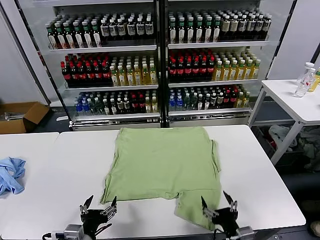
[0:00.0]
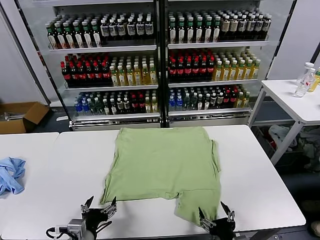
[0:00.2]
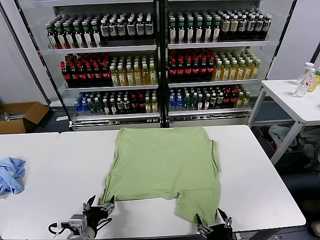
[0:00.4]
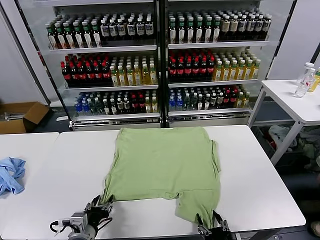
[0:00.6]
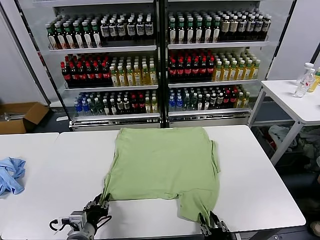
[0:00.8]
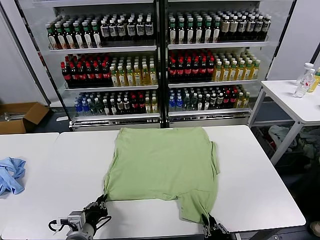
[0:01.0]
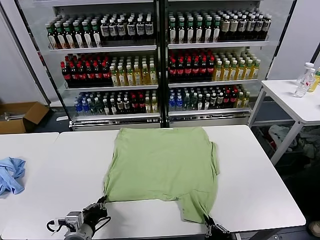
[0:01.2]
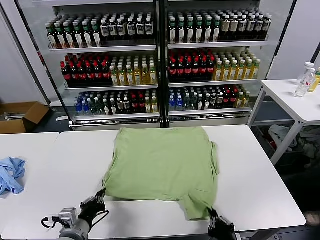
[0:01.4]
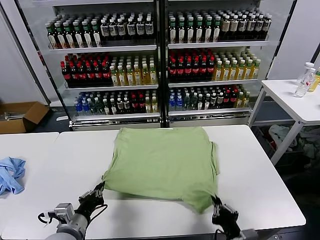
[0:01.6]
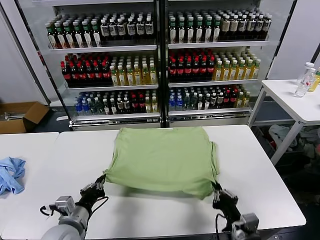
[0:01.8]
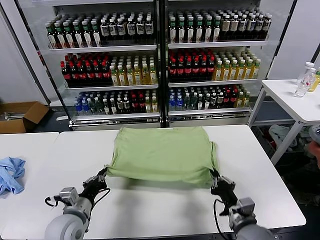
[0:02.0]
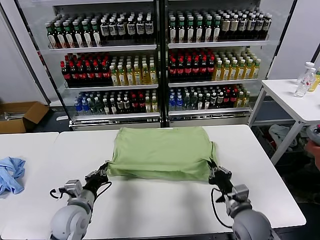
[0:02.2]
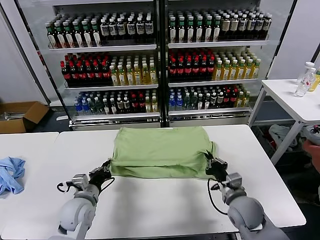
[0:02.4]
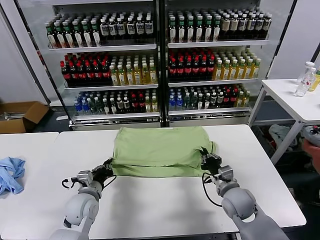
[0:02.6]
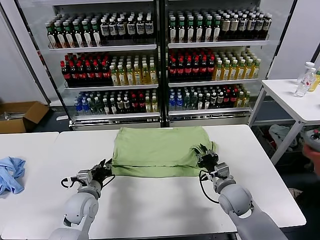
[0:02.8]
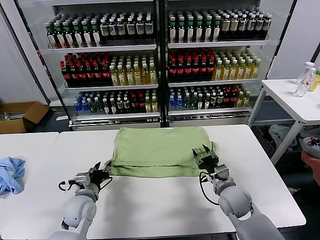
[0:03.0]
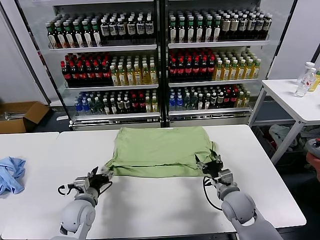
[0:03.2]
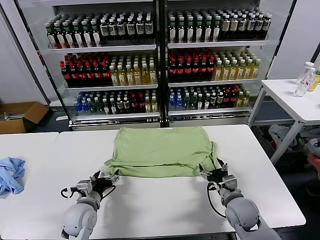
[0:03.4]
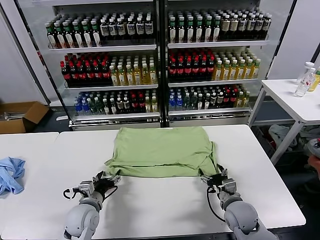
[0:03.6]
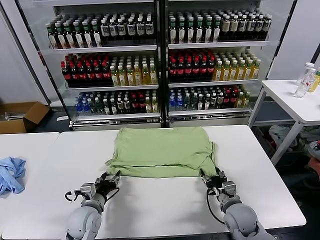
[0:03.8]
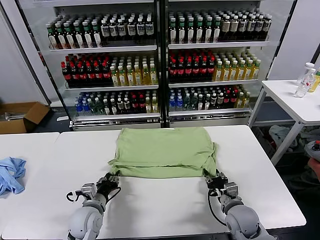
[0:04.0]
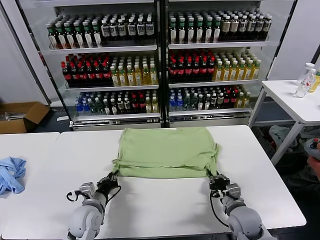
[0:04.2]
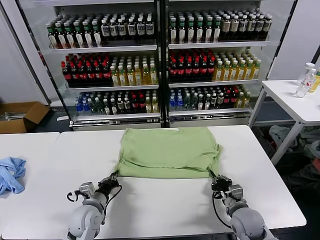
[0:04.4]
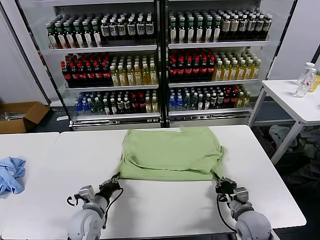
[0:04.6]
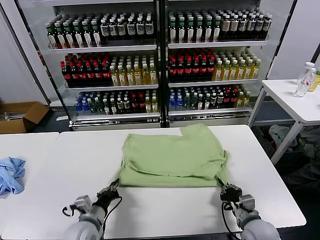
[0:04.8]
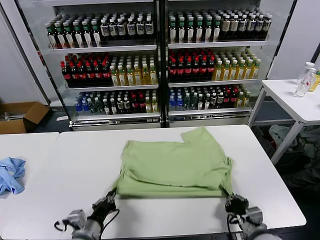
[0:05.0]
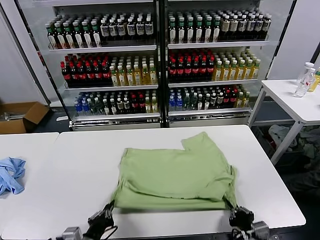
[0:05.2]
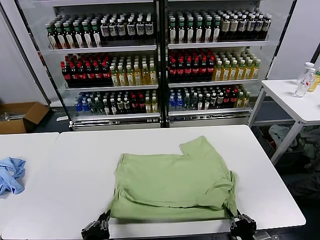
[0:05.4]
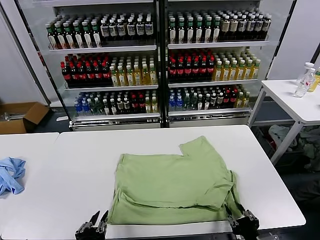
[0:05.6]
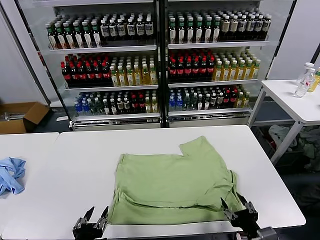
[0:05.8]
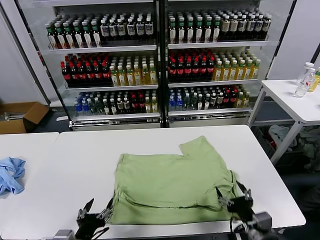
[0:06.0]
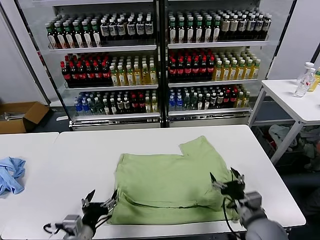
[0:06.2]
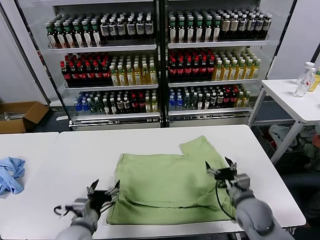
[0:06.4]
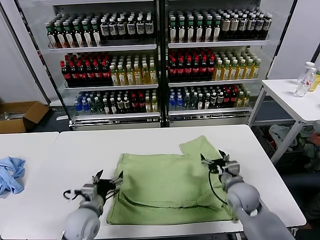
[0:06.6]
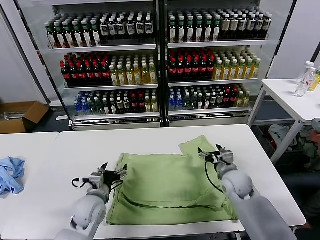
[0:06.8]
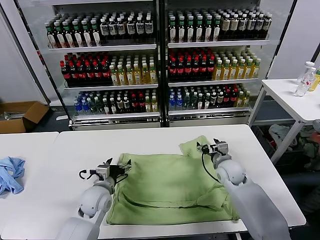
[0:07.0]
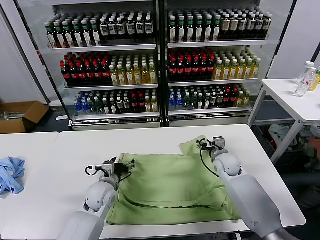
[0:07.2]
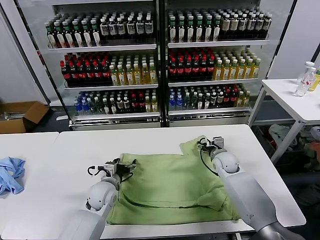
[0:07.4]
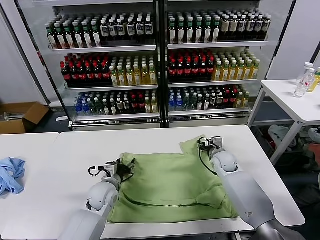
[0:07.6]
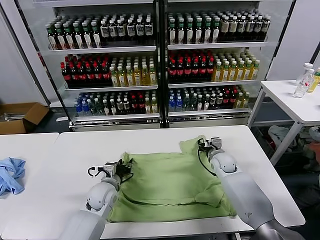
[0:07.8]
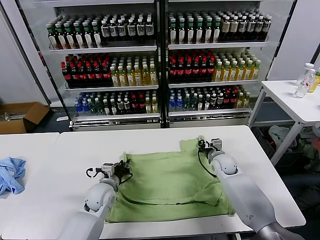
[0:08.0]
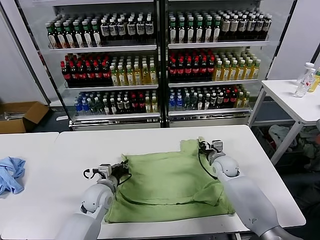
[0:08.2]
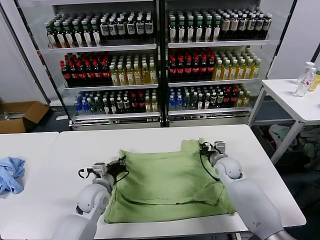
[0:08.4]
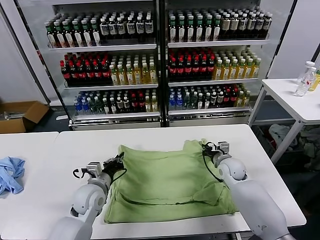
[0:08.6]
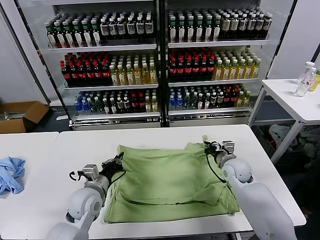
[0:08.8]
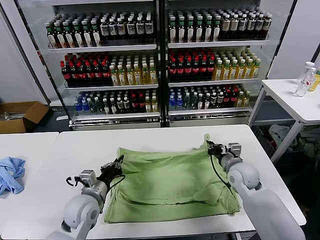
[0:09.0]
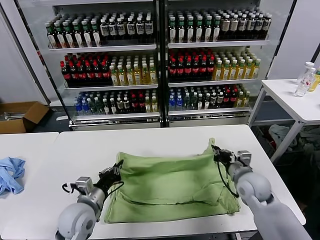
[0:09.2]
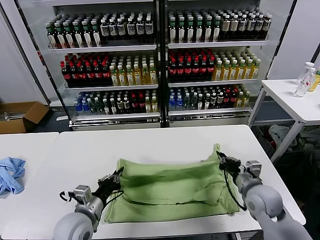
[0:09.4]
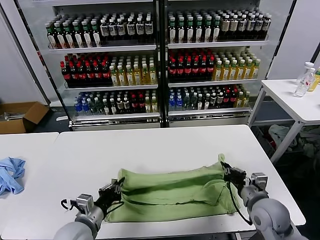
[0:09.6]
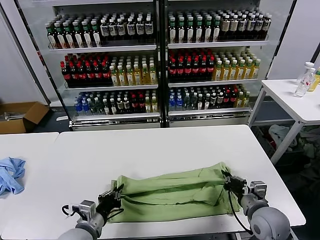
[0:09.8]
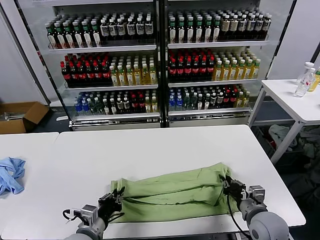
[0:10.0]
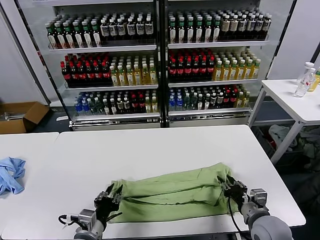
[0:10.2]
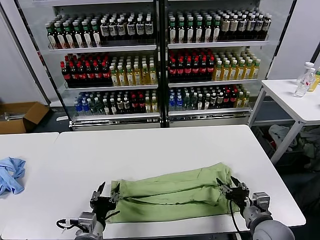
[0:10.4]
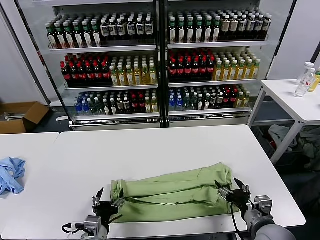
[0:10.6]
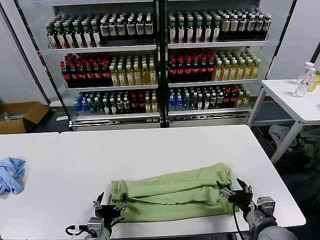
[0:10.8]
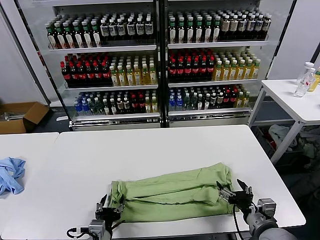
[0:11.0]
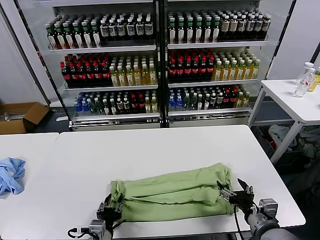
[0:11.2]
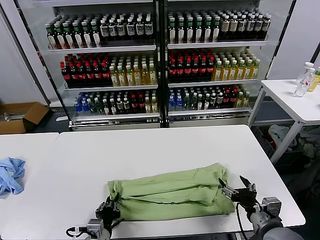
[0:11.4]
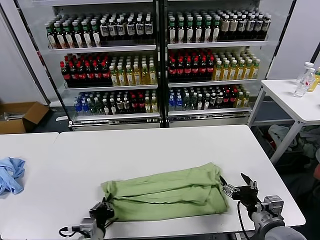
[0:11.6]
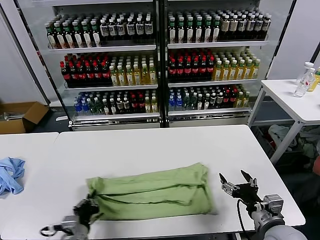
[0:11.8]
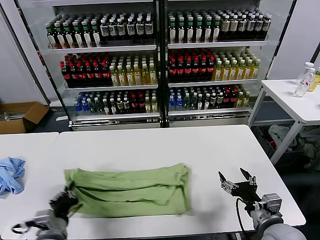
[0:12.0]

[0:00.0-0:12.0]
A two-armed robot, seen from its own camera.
Task of the whole recording: fold and organize the clothes.
Step, 0:00.0 to 0:01.2: use both grippers simultaneously to clamp the lower edge of the clothing fabric.
Step, 0:01.4 to 0:03.0: use both grippers to drag the lower edge of the fabric forward and fold it over the upper edge.
Step, 0:03.2 to 0:05.4: Drag the clothes downward with both gripper.
Step, 0:05.8 to 0:08.0: use both grippers simultaneously to clamp the upper edge of the clothing fabric.
Step, 0:08.4 to 0:10.2: use both grippers to drag the upper edge of the fabric backward and fold it over the lower edge.
Step, 0:10.4 to 0:11.2: use the left gripper to clamp the left edge of the fabric.
0:01.6 to 0:03.0: The right gripper shifts some 15 cm forward, and opens up, while the left gripper goes some 10 cm forward, and opens.
0:03.0 to 0:04.4: The right gripper travels backward by about 5 cm, and closes up; the left gripper closes up.
0:04.4 to 0:06.0: The right gripper shifts some 10 cm upward and backward, and opens its fingers, while the left gripper goes roughly 15 cm backward and upward, and opens up.
0:06.0 to 0:07.6: Both grippers travel together forward, some 25 cm. The right gripper closes its fingers.
0:07.6 to 0:09.0: Both grippers travel together backward and upward, approximately 10 cm. The right gripper closes up; the left gripper closes up.
0:09.0 to 0:10.4: The right gripper heads backward, covering some 15 cm, and opens up, while the left gripper travels backward by roughly 10 cm, and opens its fingers.
0:10.4 to 0:12.0: The left gripper travels to the left by some 10 cm, and closes its fingers.

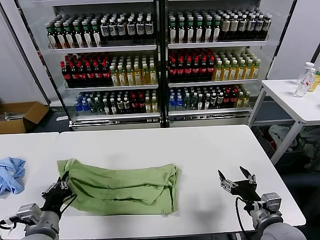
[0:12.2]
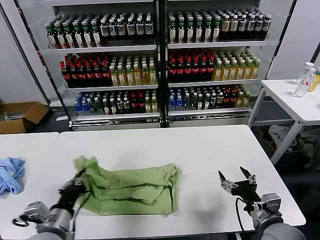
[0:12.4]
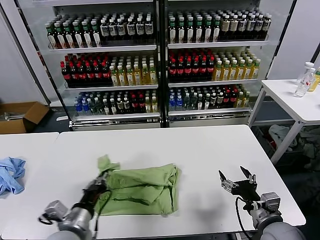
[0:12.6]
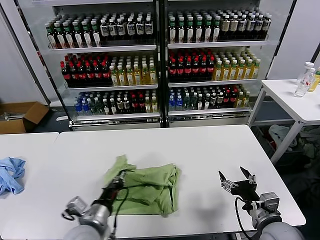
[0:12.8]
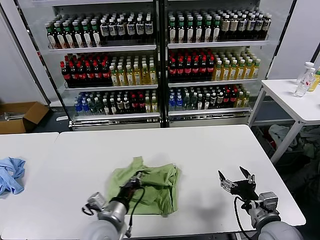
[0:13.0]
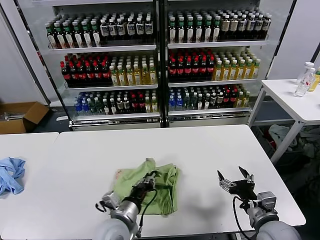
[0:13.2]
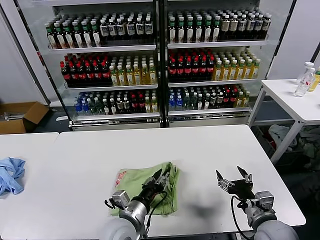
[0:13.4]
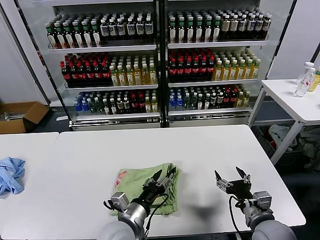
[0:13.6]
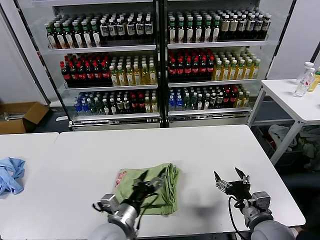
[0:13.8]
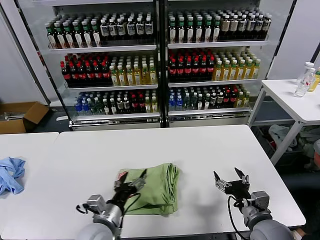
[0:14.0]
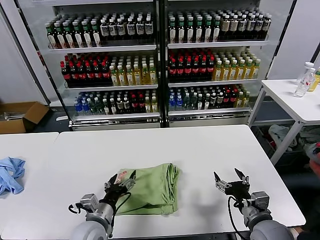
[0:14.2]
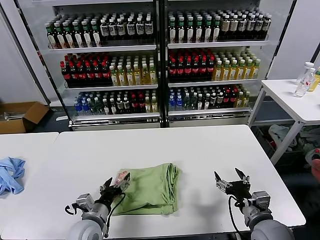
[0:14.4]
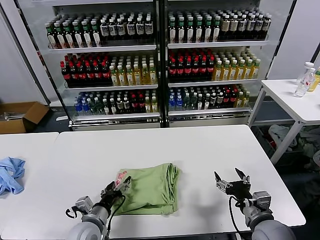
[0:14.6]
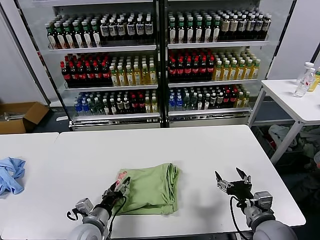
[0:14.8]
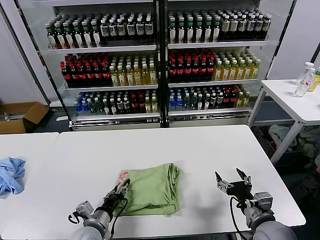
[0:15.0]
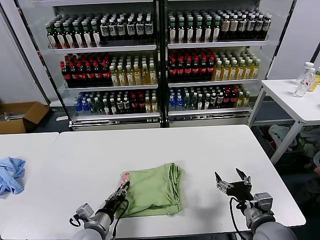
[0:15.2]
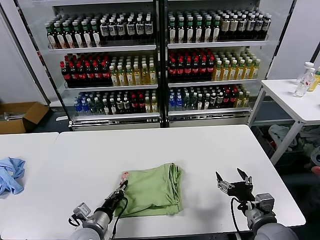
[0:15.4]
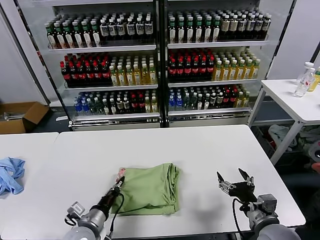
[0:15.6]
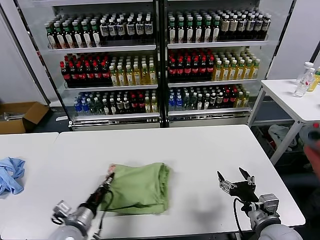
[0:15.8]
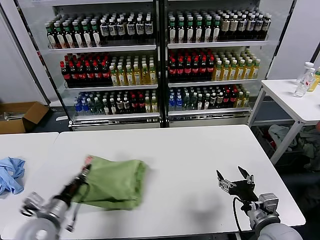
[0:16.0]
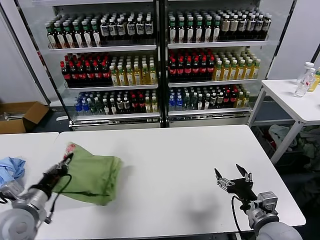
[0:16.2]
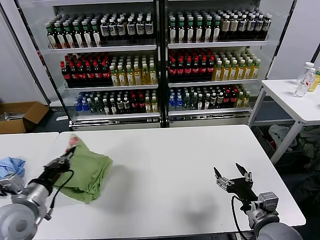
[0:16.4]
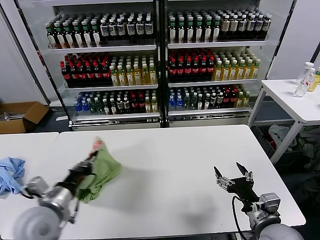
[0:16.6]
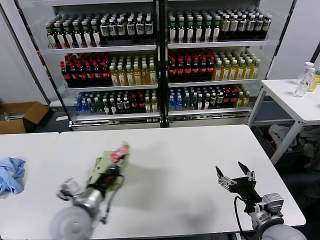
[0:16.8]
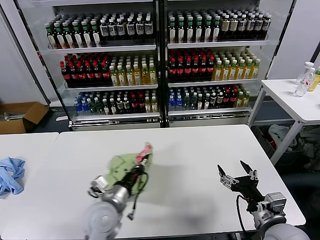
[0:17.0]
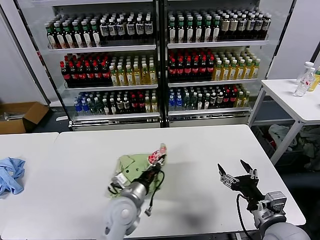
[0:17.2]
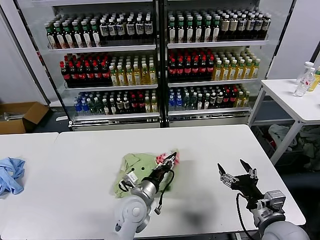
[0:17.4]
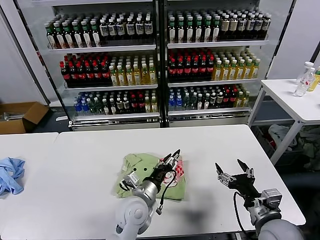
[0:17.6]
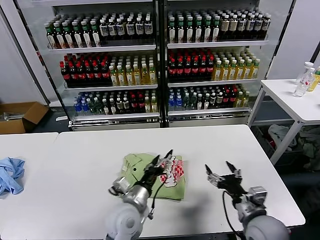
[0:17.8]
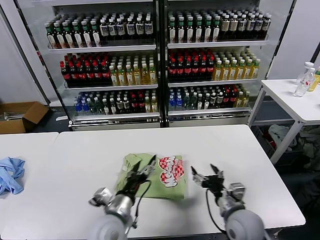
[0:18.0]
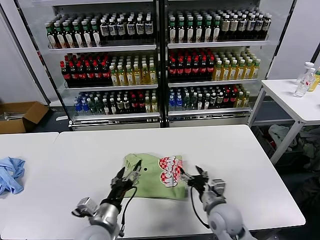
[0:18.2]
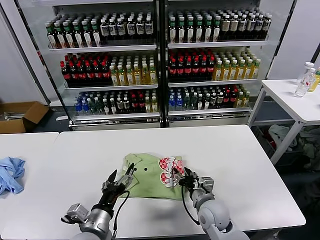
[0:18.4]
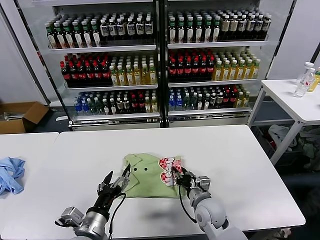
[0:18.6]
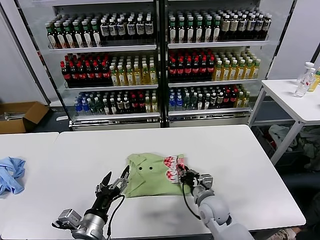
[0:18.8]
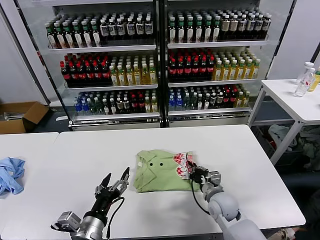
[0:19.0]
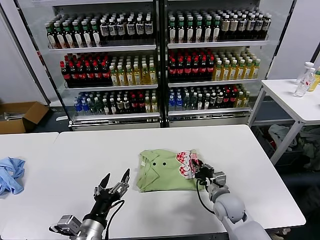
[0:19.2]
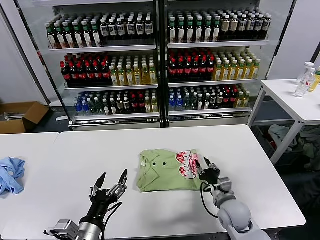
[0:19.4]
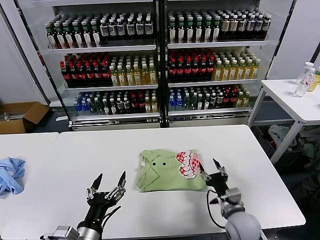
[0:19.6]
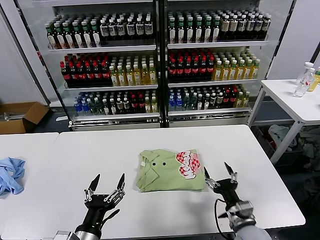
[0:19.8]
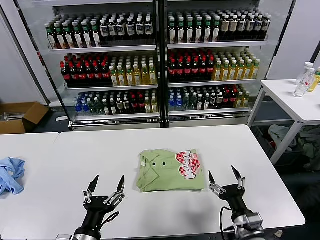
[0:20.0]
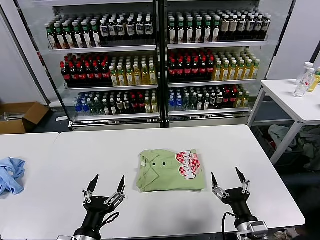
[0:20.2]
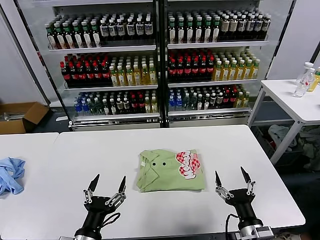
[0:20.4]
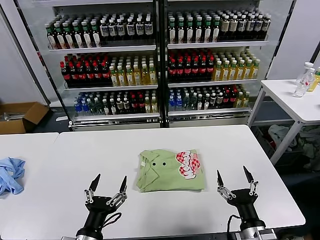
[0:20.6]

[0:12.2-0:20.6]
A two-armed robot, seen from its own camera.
Task of the whole recording: fold and organize the clothes.
Step, 0:12.2 to 0:13.4: use the left gripper to drag the left edge of the fabric to the left and folds it over the right edge.
Step, 0:13.8 to 0:17.4: Flip the folded clothes over with left gripper.
Step, 0:17.6 to 0:19.4: Drag the clothes to the center of the table.
0:12.2 to 0:13.6: The left gripper is displaced to the right by some 20 cm, and opens its fingers.
0:13.6 to 0:15.0: The left gripper is displaced to the left and downward by roughly 15 cm.
0:15.0 to 0:16.4: The left gripper moves upward and to the left, roughly 20 cm, and closes up.
0:16.4 to 0:17.8: The left gripper shifts approximately 25 cm to the right, and opens.
0:17.8 to 0:19.2: The right gripper is displaced forward, downward and to the left by some 15 cm, and closes its fingers, while the left gripper heads backward and to the left, covering some 15 cm.
0:19.2 to 0:20.6: The right gripper moves backward, some 20 cm, and opens.
